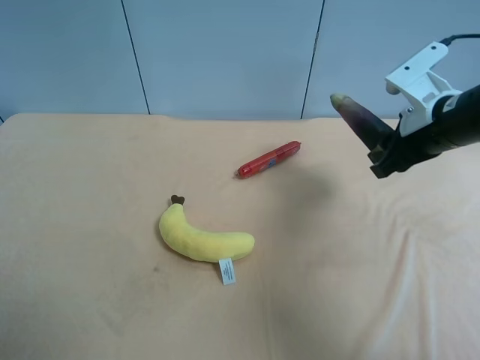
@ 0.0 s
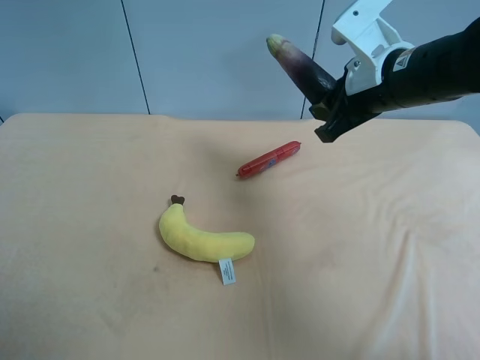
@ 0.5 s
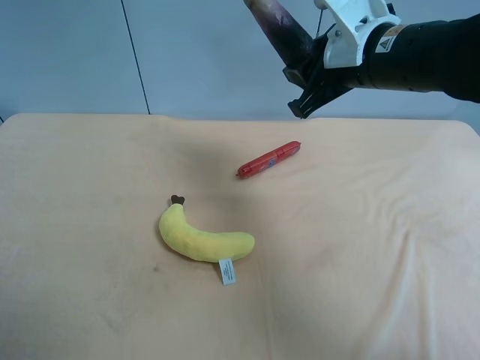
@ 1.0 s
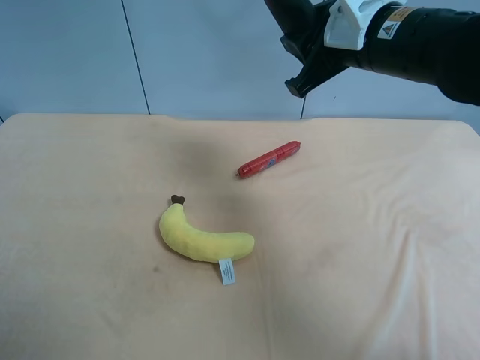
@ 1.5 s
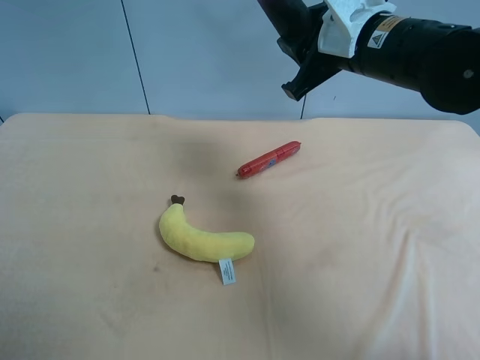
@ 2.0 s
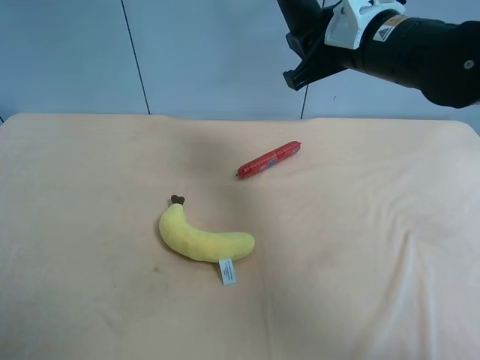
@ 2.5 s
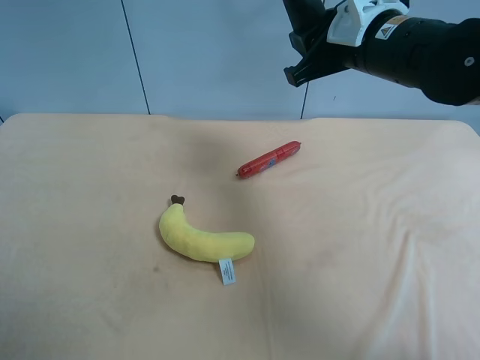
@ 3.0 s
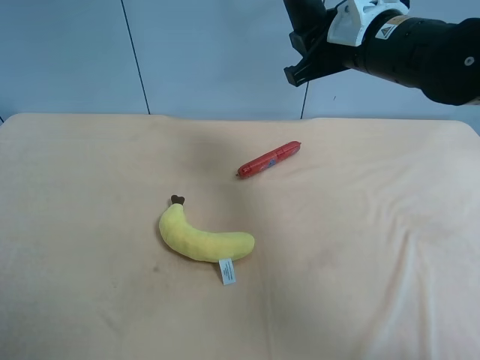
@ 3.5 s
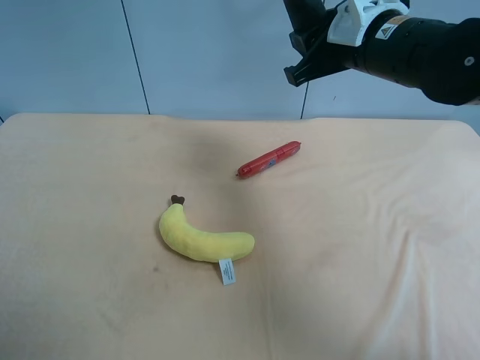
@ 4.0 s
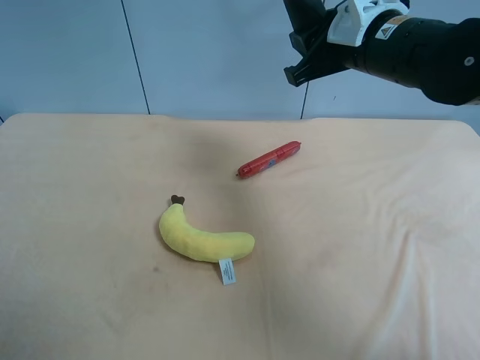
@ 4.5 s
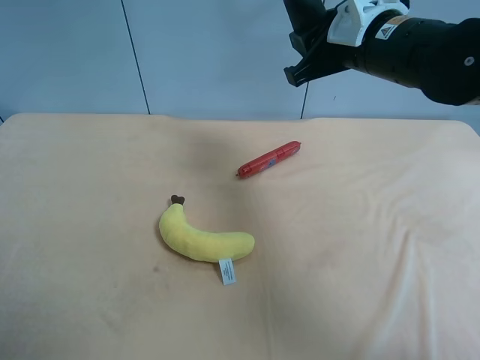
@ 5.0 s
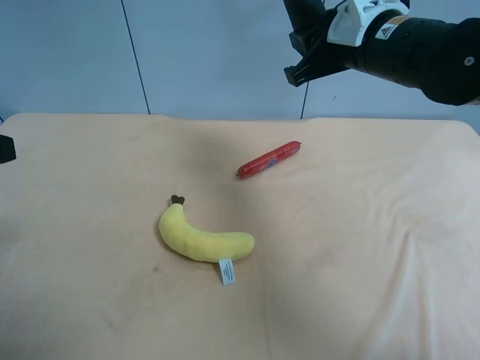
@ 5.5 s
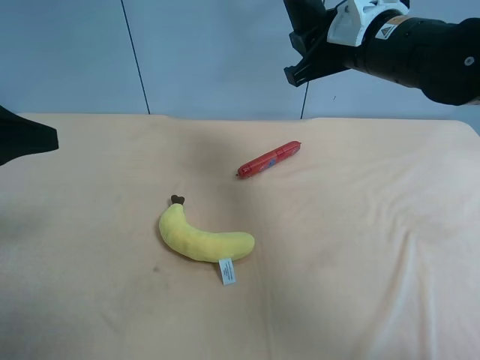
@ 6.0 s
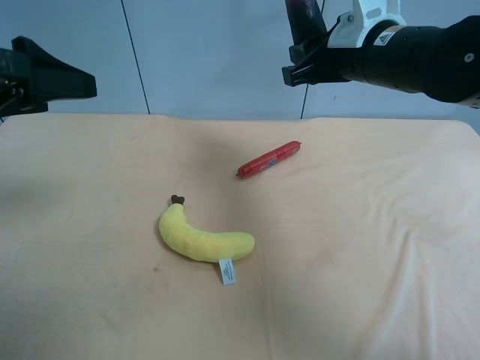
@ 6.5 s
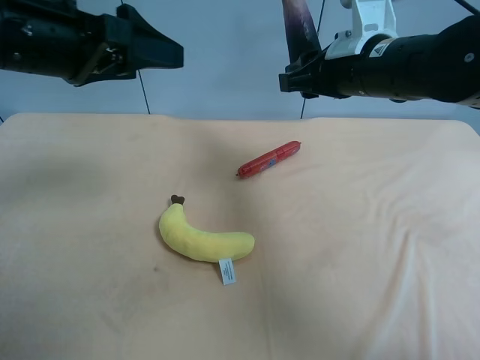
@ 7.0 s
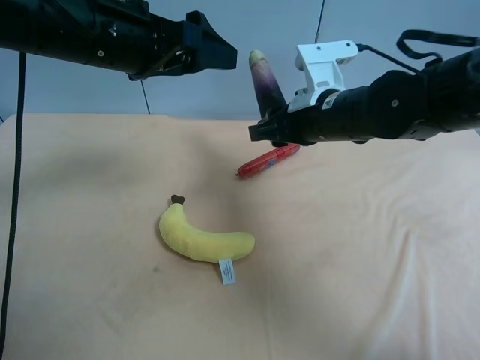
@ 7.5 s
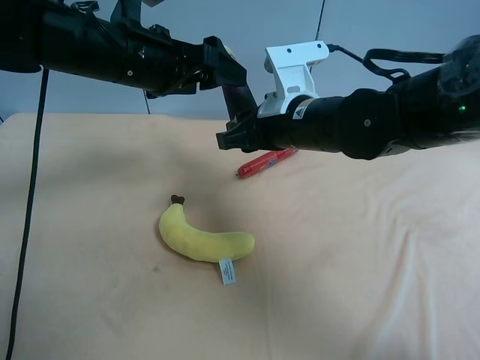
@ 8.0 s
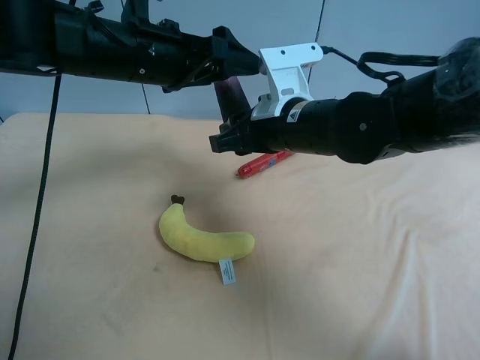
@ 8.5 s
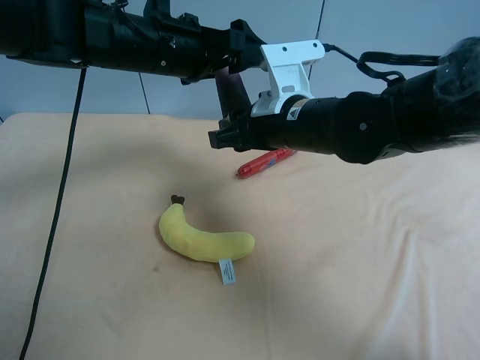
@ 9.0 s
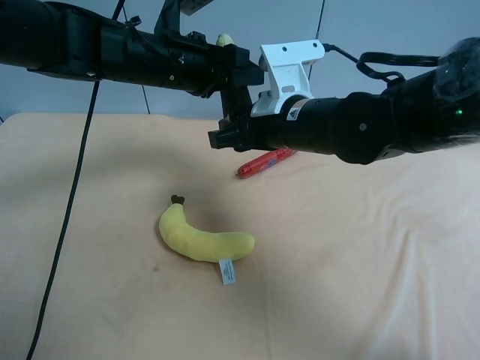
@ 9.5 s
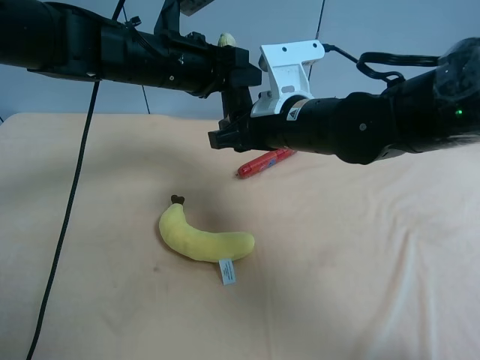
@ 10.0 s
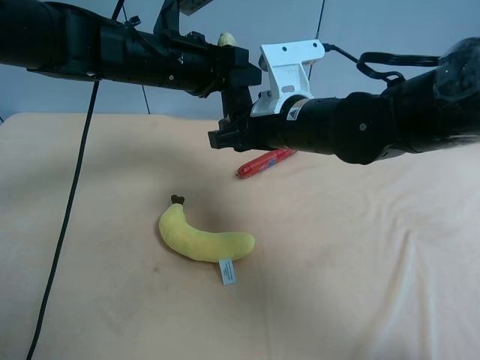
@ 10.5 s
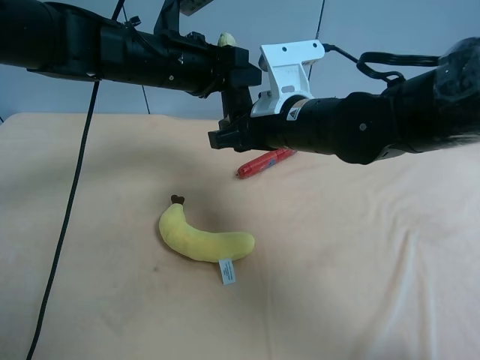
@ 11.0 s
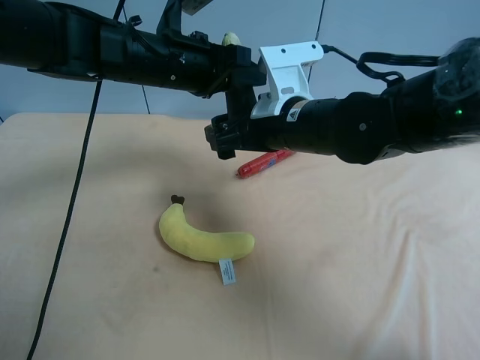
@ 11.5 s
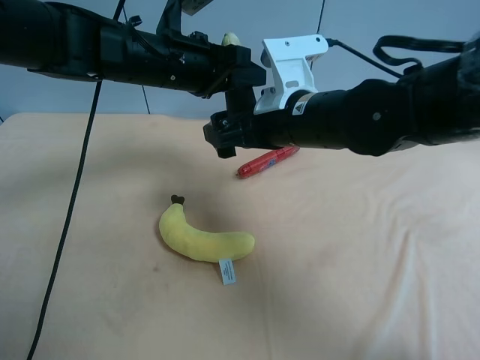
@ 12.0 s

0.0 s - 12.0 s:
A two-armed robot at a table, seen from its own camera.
Task of the whole recording: use the right gripper to pick up the item and transfer it from the right gripper to the left gripper.
0.0 s - 2.0 s: The right gripper moves to the left and upward, about 10 cm.
2.0 s - 4.0 s: The grippers make only small movements.
4.0 s - 6.0 s: The left gripper heads forward, covering approximately 15 cm.
6.0 s - 8.0 s: The left gripper heads forward and to the right, covering approximately 20 cm, while the right gripper shifts about 10 cm downward and to the left.
8.0 s - 10.0 s: The left gripper changes place by approximately 5 cm, and closes its fingers.
10.0 s - 12.0 s: The right gripper opens up.

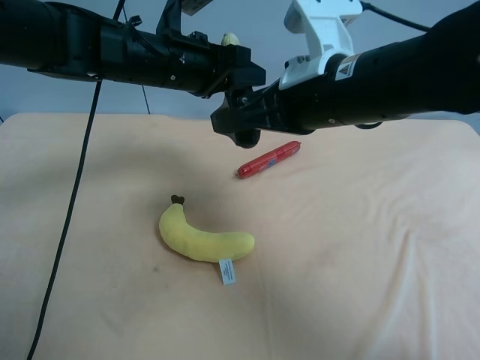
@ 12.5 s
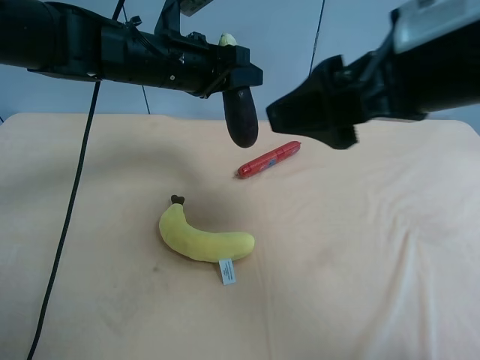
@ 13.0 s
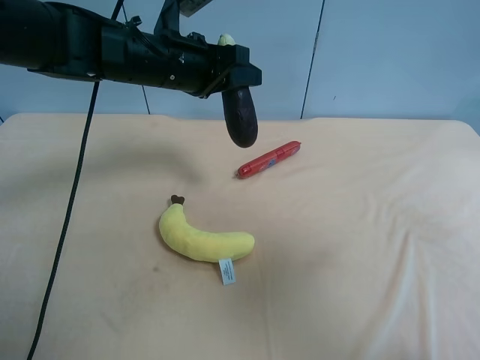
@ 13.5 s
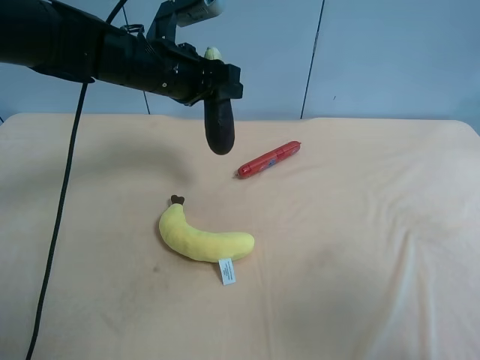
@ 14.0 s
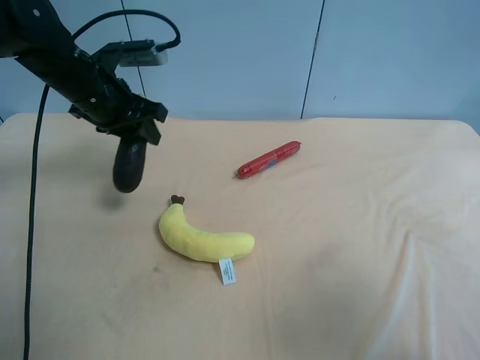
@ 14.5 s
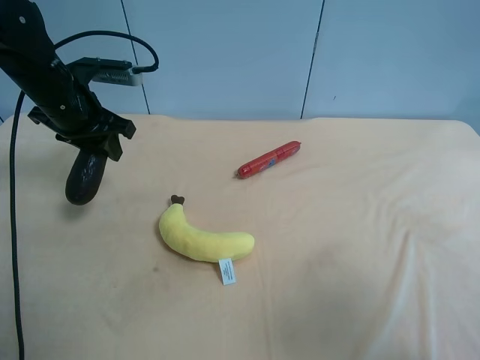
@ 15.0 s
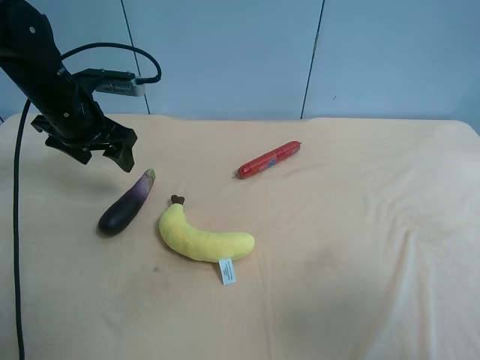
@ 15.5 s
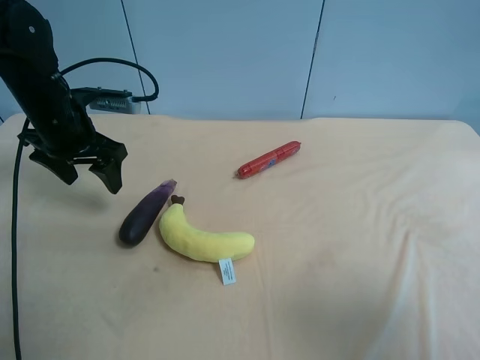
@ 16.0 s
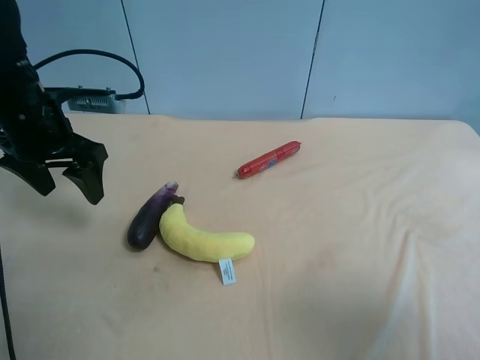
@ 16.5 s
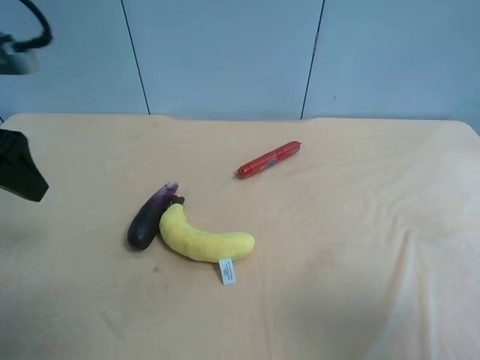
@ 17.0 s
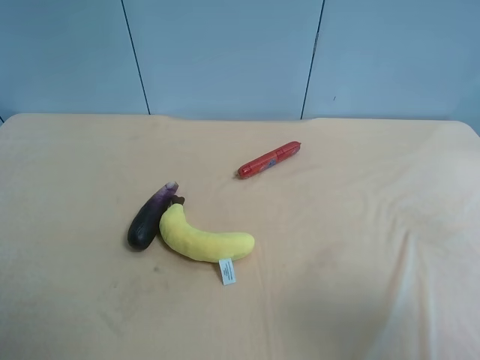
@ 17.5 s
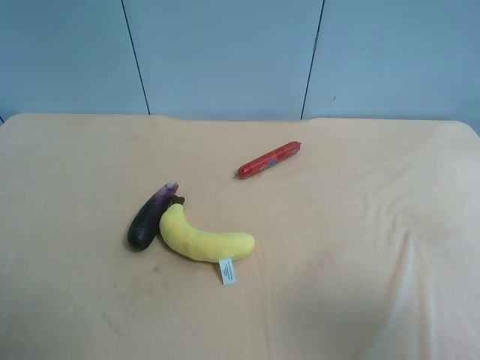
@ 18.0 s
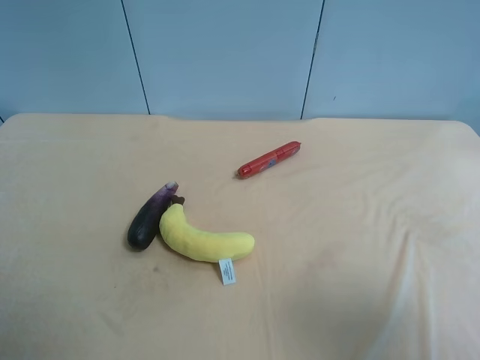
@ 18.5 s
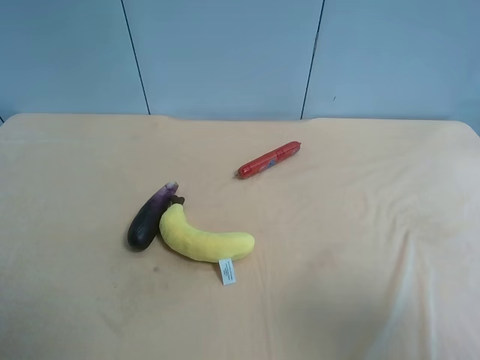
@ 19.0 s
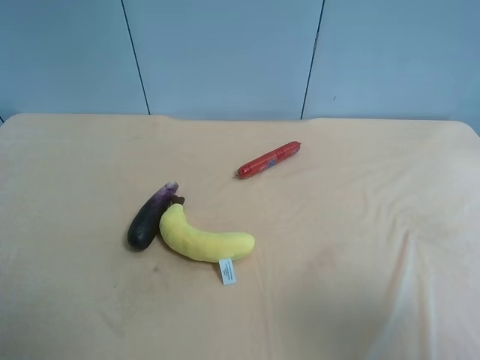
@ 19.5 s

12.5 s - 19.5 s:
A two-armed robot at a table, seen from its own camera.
Task of the whole recording: use the right gripper to pick up the item and transfer it from the right gripper to the left gripper.
12.5 s - 14.5 s: The right gripper moves backward and to the right, about 30 cm. Meanwhile the left gripper moves to the left, roughly 10 cm.
14.5 s - 16.0 s: The left gripper opens up.
16.0 s - 17.5 s: The left gripper shifts about 35 cm backward and upward.
